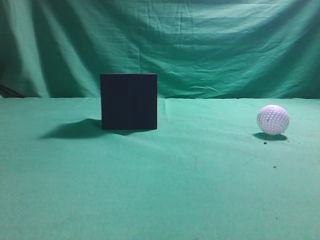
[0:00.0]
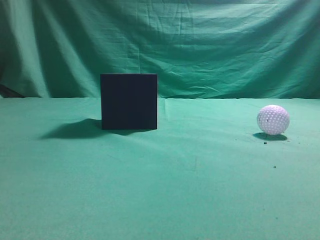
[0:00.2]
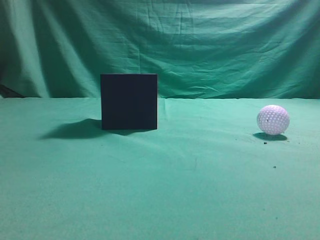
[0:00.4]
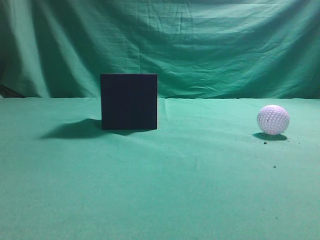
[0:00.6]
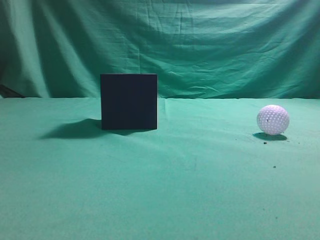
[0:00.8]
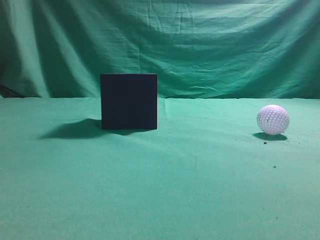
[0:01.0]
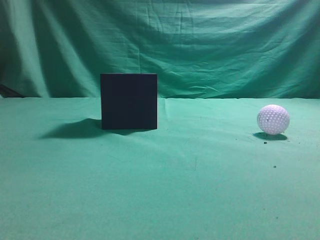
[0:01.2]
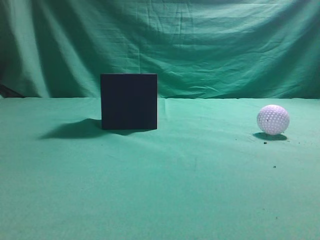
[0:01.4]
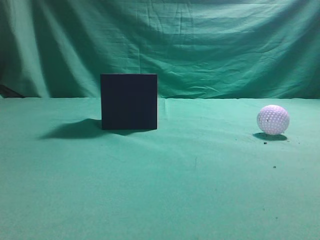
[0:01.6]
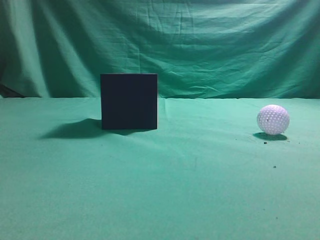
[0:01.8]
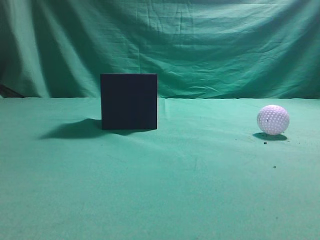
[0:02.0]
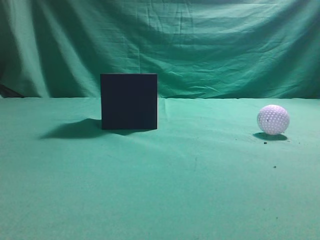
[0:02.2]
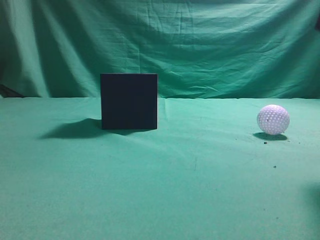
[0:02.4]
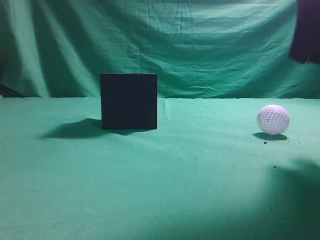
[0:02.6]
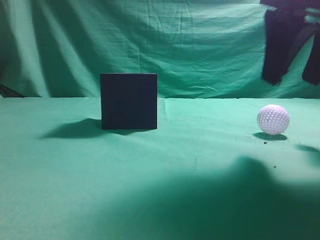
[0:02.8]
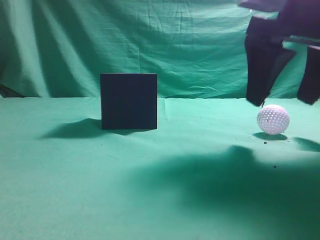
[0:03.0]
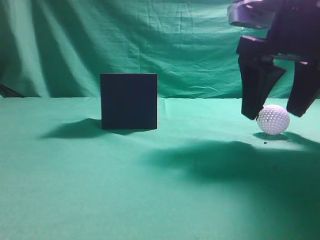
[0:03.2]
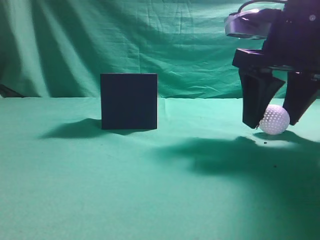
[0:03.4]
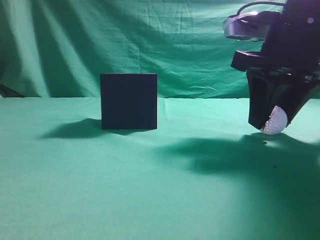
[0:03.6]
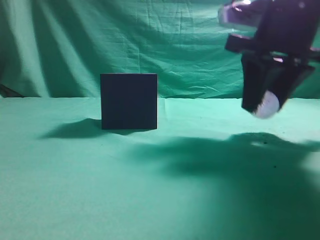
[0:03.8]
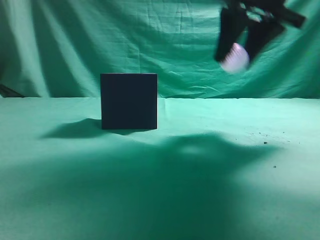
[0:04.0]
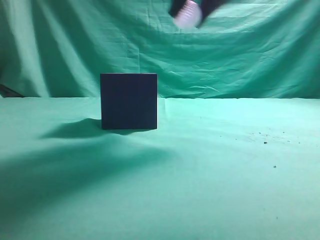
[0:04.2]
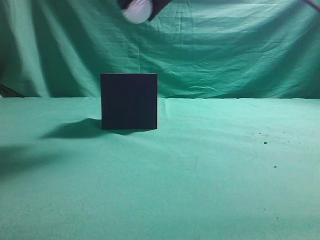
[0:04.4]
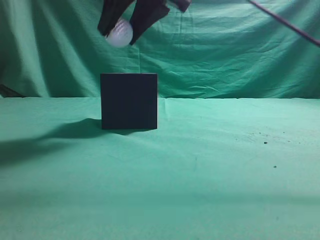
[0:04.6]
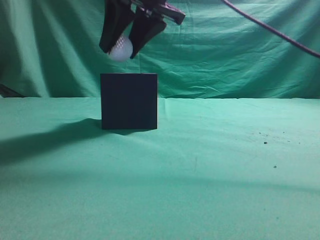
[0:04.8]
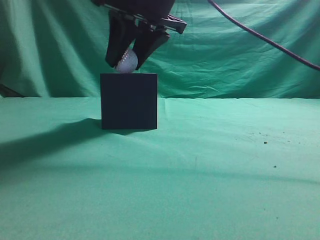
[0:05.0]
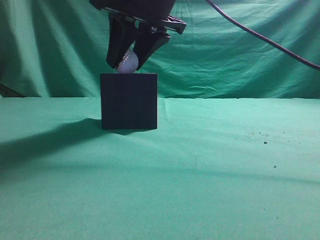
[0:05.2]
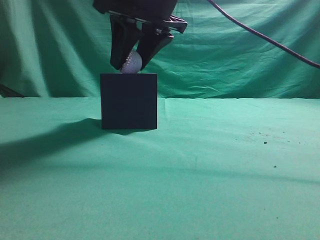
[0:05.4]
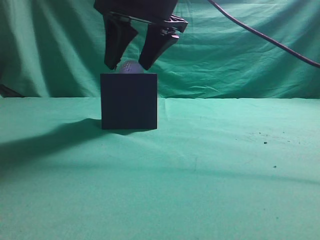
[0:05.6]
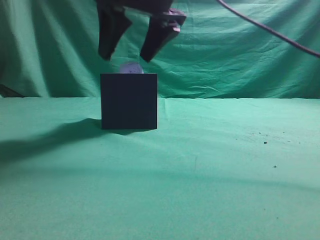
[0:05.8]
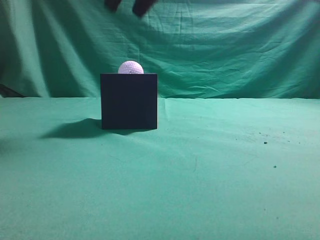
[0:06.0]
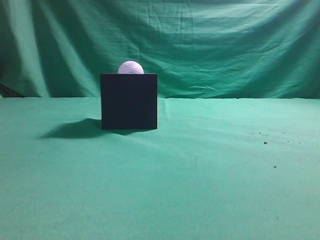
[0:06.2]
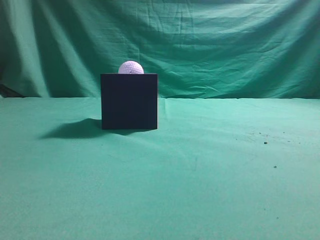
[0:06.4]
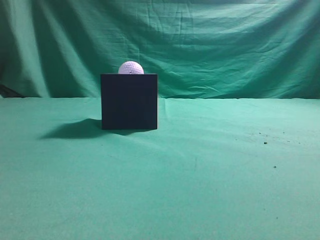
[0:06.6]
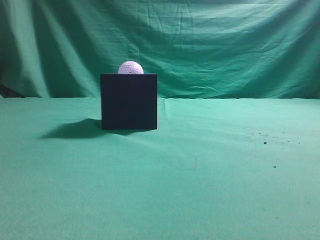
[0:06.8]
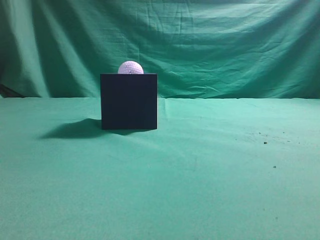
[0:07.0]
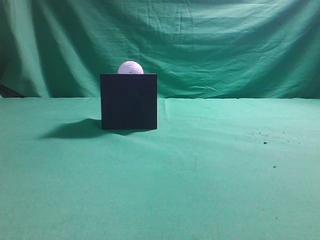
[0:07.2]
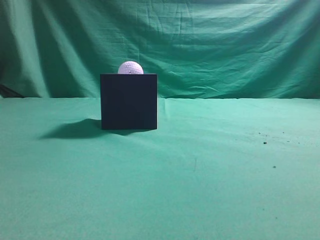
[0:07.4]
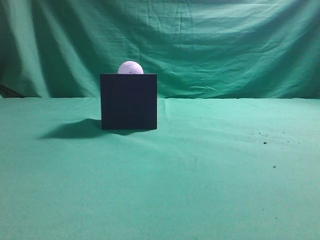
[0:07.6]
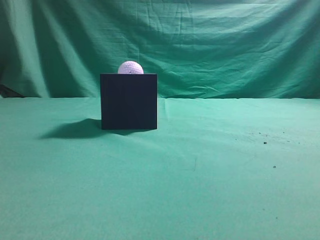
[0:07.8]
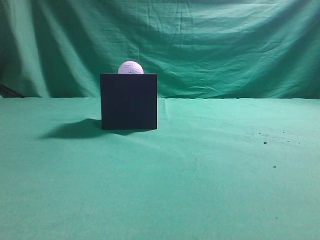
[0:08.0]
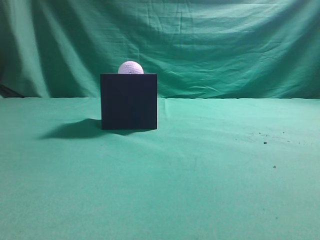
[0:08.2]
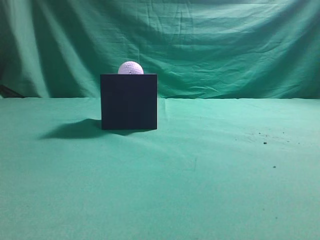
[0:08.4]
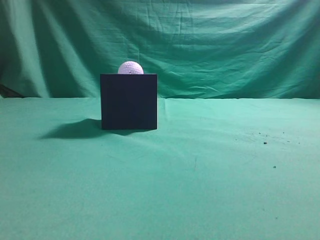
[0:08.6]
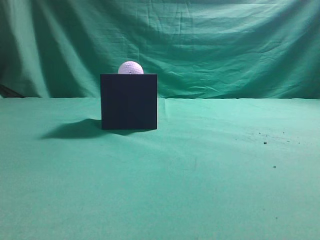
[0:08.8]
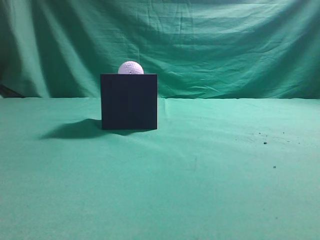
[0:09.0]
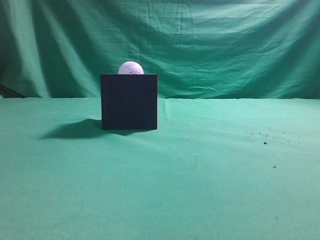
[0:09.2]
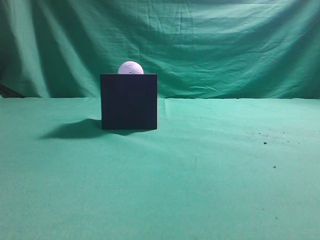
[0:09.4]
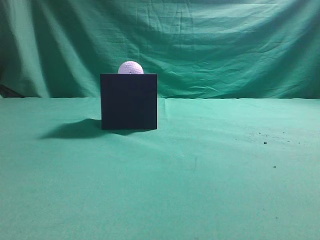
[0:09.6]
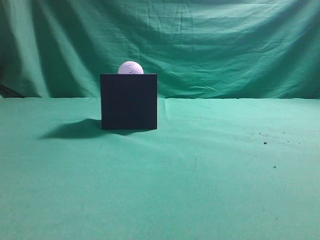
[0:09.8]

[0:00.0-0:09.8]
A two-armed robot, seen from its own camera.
Task of the whole recording: Pick up the ball and place it in the circular groove above the cube.
Step, 0:00.0 to 0:03.8: Grasp the sphere on the table.
Step, 0:04.0 to 0:05.8: Place the sphere into the sphere-shaped recess.
0:01.4 to 0:02.8: The right gripper heads forward and to the left, covering about 25 cm, and opens its fingers.
0:02.8 to 0:04.2: The right gripper goes about 15 cm to the left, upward and forward.
0:04.2 to 0:05.6: The right gripper shifts about 10 cm to the left and downward.
0:05.6 to 0:07.0: The right gripper moves upward, backward and to the right, roughly 30 cm, and closes.
